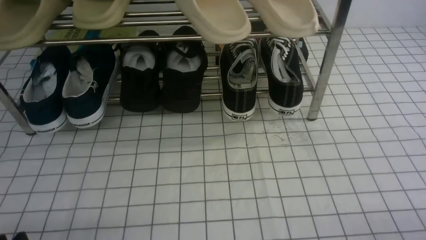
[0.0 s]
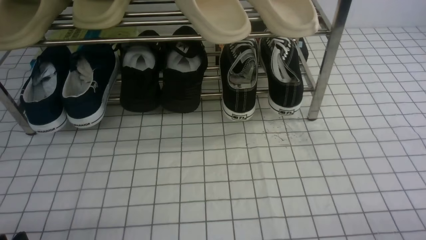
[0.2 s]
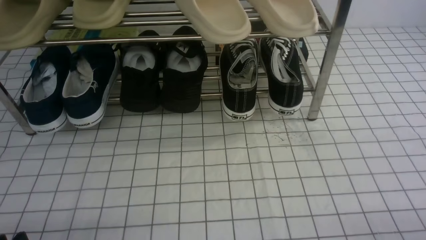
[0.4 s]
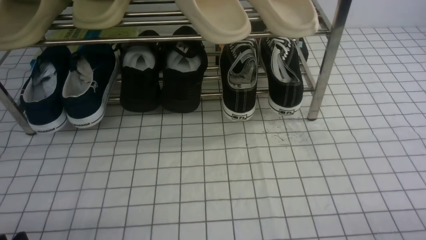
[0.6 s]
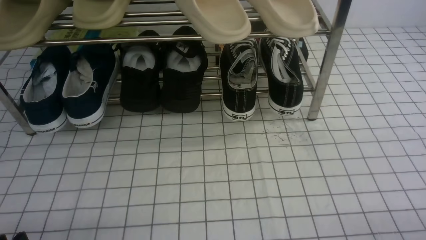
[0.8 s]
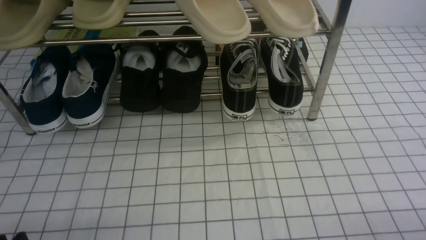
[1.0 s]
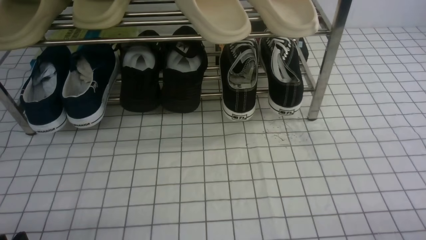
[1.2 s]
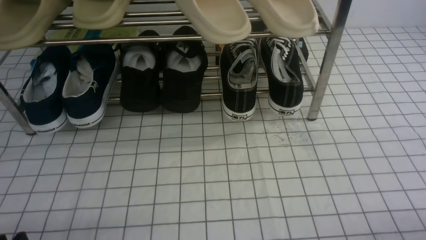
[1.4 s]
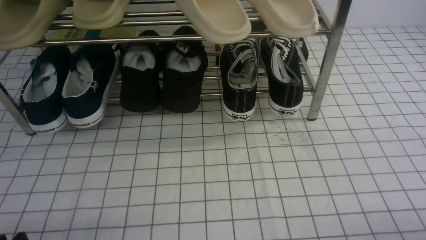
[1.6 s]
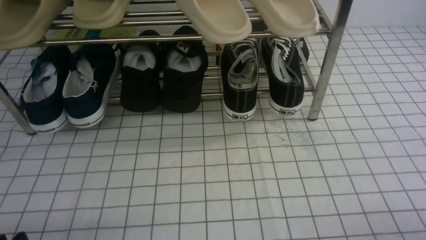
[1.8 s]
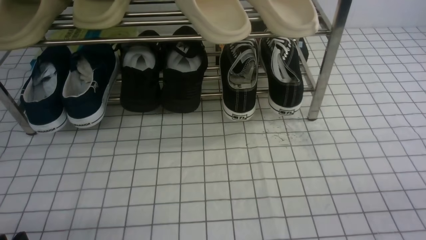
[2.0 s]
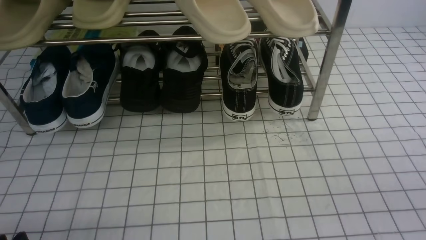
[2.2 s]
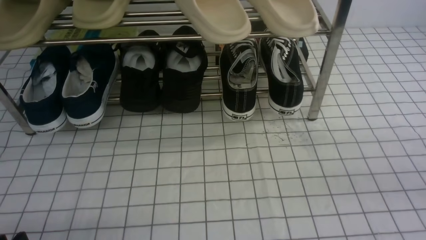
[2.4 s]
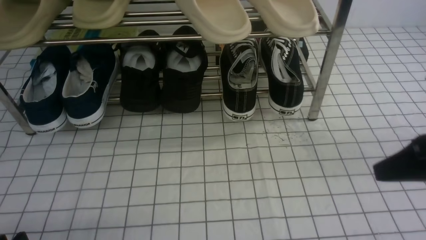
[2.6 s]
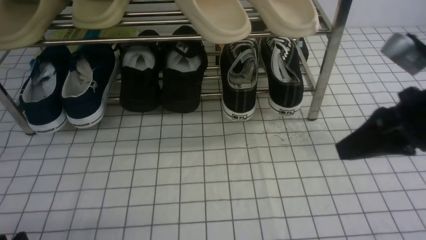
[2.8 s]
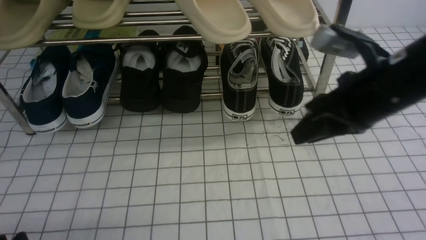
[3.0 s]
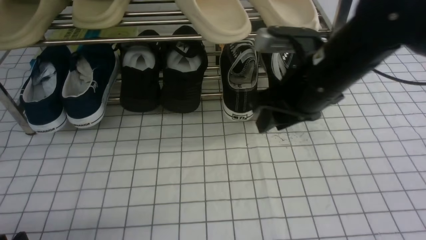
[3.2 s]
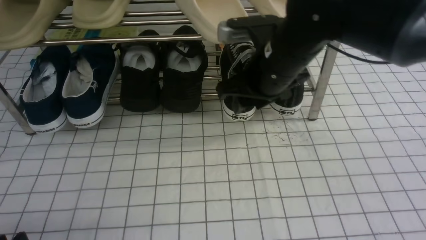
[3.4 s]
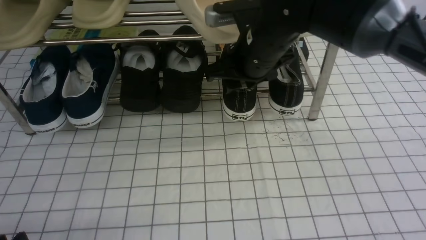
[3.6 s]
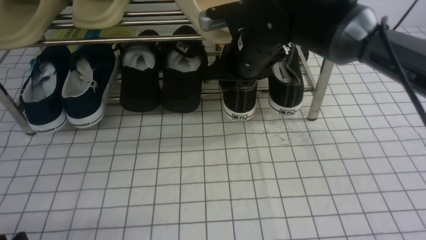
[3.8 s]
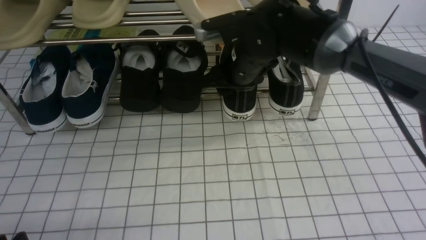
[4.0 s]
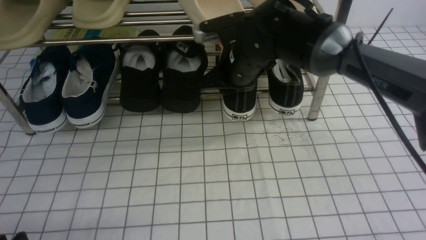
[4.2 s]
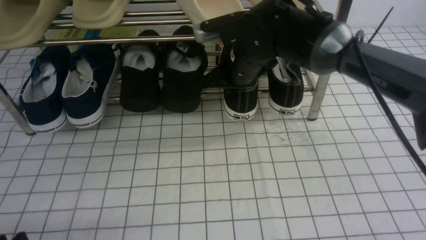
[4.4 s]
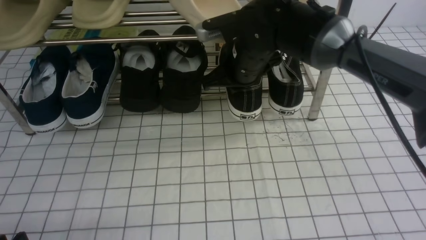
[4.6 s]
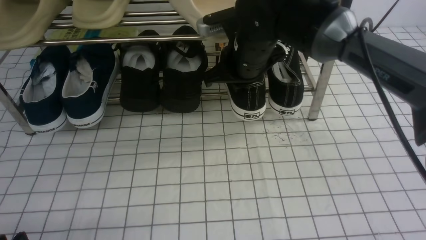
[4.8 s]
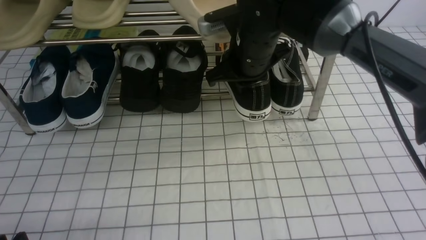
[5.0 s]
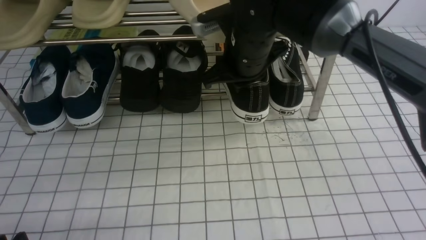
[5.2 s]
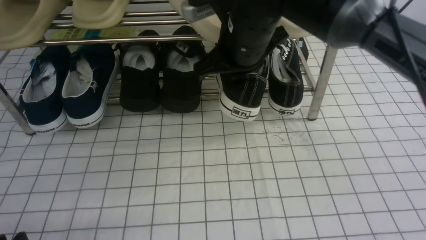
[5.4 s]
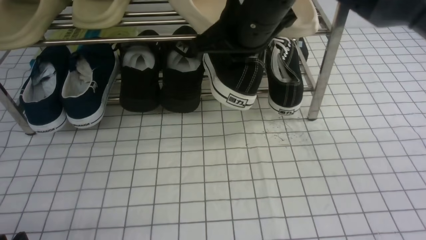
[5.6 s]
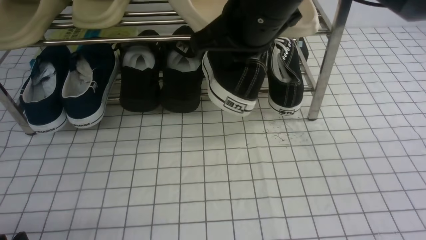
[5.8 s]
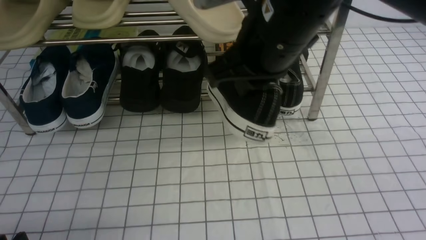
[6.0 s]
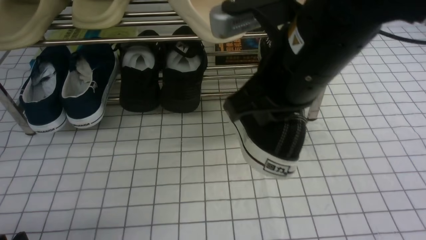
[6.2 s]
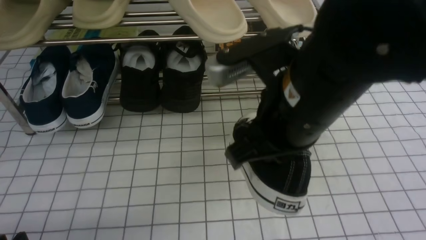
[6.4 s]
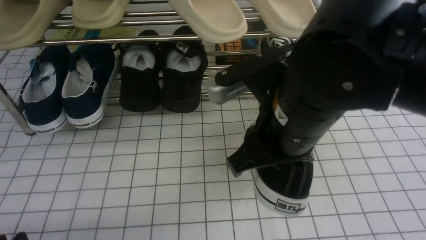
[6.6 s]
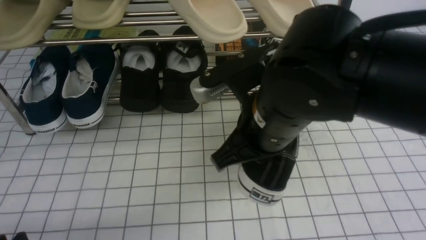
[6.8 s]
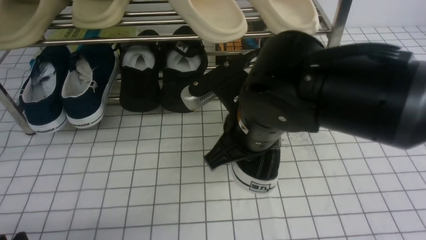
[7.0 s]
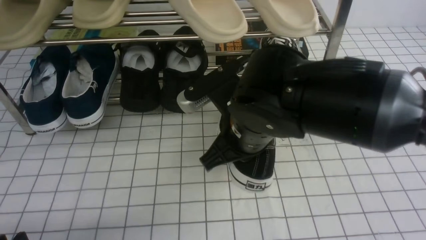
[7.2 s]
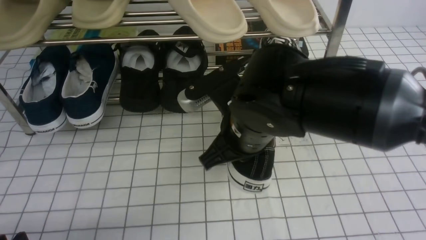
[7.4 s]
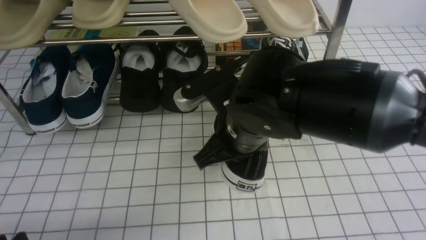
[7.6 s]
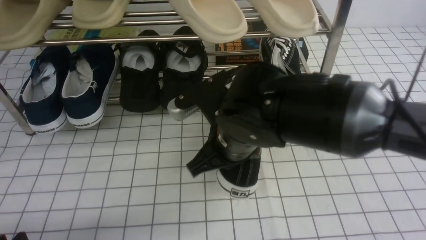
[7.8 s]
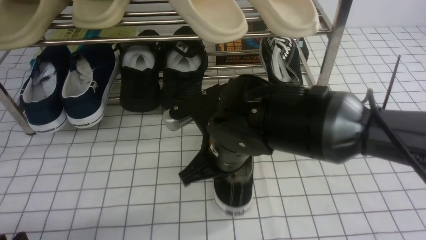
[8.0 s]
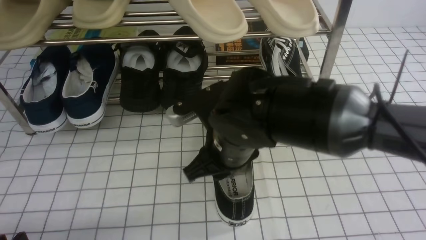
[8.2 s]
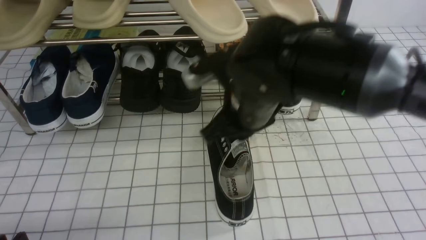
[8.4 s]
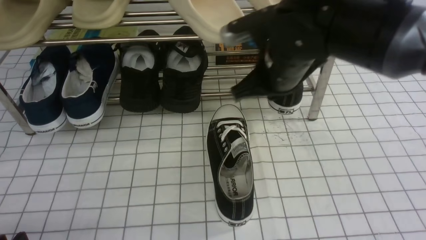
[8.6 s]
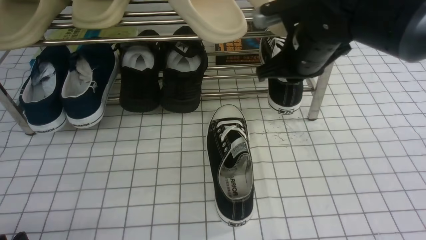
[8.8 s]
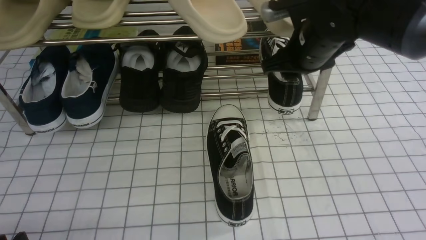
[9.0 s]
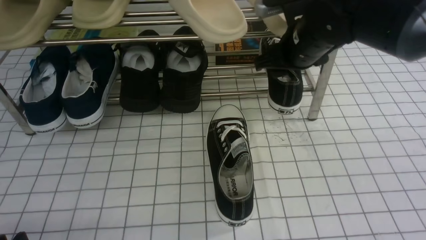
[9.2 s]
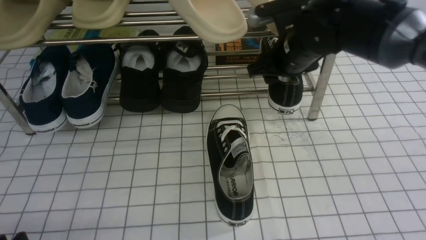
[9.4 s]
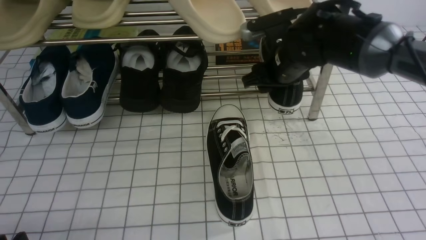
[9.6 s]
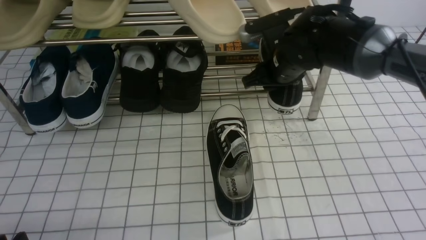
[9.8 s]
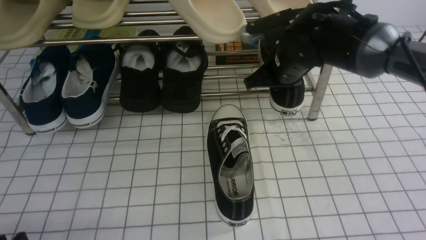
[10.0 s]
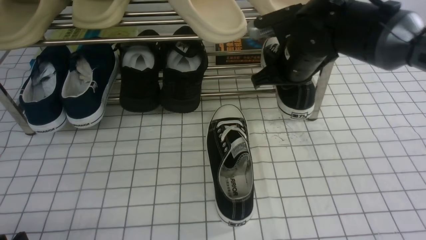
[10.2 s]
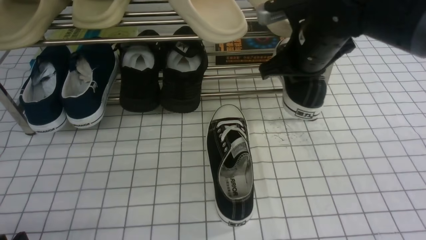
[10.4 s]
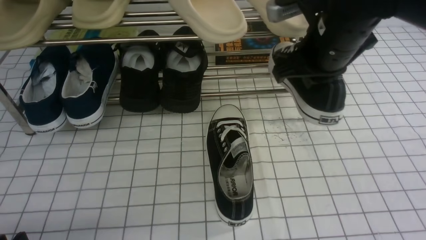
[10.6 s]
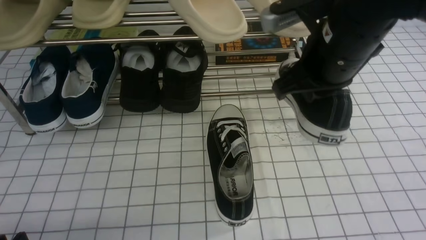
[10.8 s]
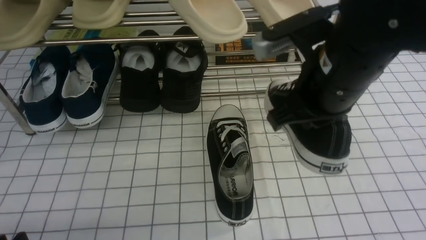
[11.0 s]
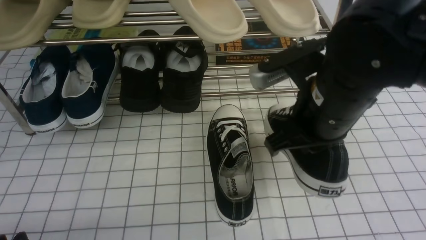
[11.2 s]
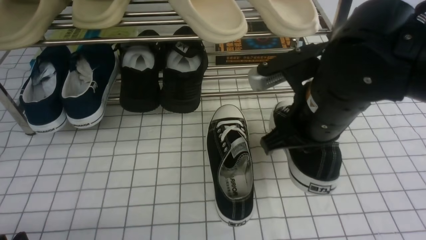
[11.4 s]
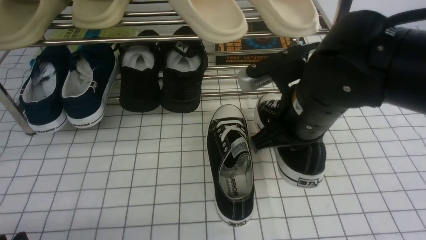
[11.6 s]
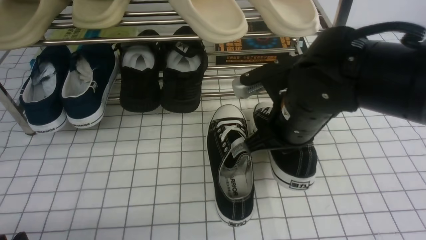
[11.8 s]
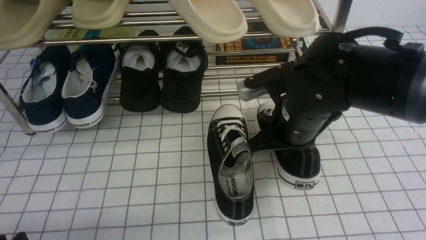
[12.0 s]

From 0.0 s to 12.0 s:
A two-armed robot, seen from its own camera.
Step, from 0.0 s to 4.2 s: use the right arm to clamp a shoe on the right side of the shoe rack.
Step, from 4.4 s to 8.2 s: use the right arm to take out the clamped shoe from the shoe rack and put it down.
Step, from 8.4 s to 9.8 s: use the right arm to clamp a shoe on the right side of the shoe rack.
From 1.6 s to 3.0 s: The right gripper heads forward, upward and to the left, covering roughly 30 cm, and closes, then reopens.
From 3.0 s to 4.4 s: The right gripper shifts roughly 20 cm to the left, forward and downward, and closes.
From 4.4 s to 6.0 s: The right gripper travels backward and upward by some 20 cm.
From 6.0 s to 7.6 s: The right gripper is displaced downward by approximately 10 cm.
From 7.6 s to 9.0 s: The right gripper travels forward and to the right by about 15 cm, and opens its fingers.
From 9.0 s to 10.4 s: The right gripper closes up.
From 10.4 s to 12.0 s: The right gripper travels backward and downward by some 10 cm.

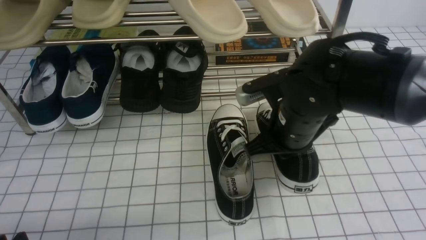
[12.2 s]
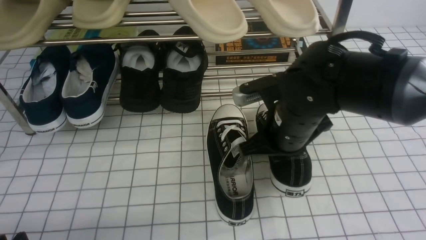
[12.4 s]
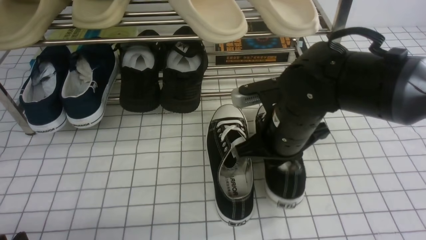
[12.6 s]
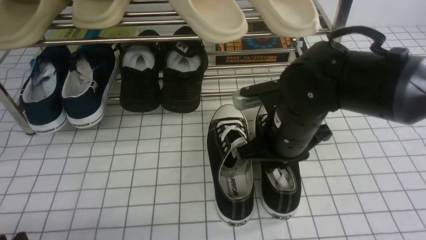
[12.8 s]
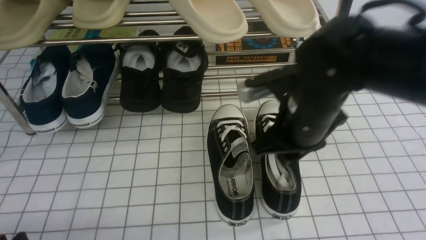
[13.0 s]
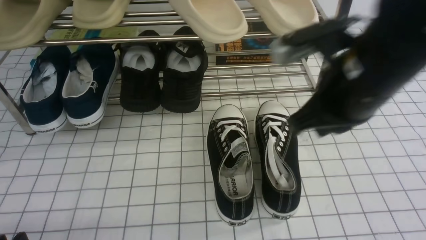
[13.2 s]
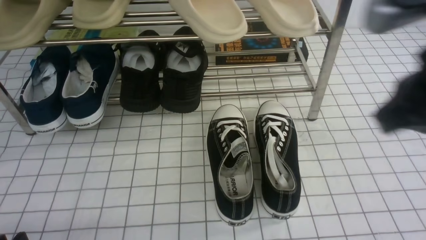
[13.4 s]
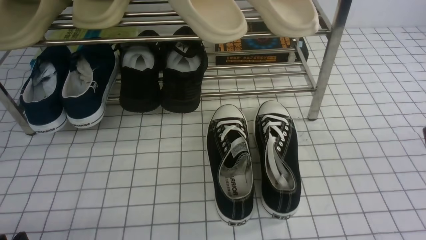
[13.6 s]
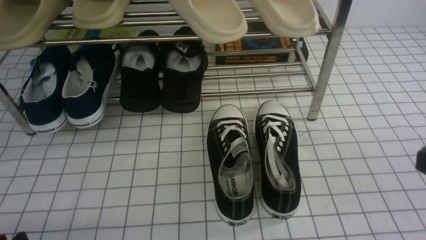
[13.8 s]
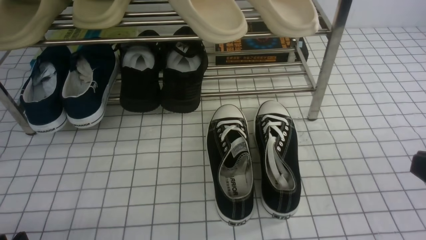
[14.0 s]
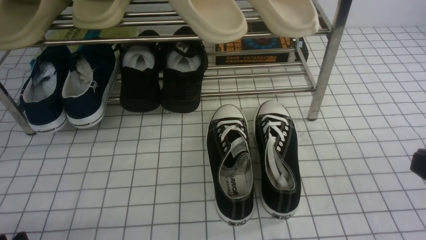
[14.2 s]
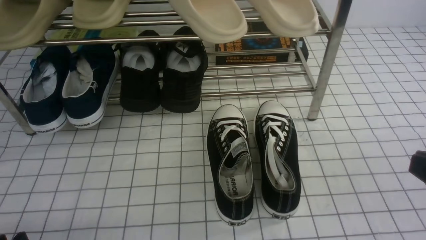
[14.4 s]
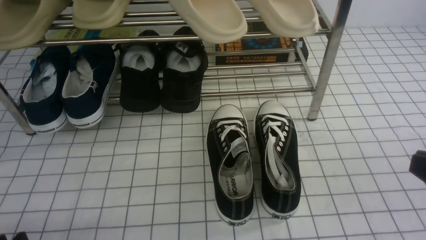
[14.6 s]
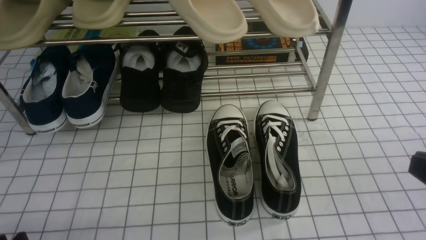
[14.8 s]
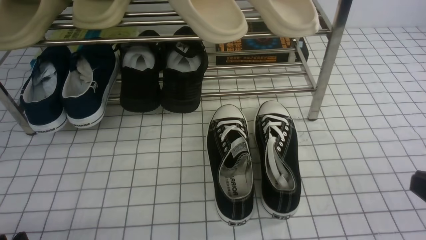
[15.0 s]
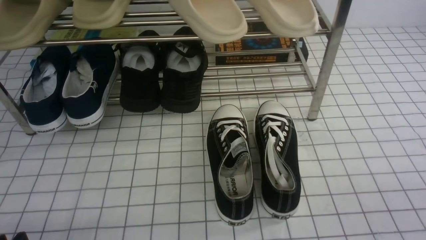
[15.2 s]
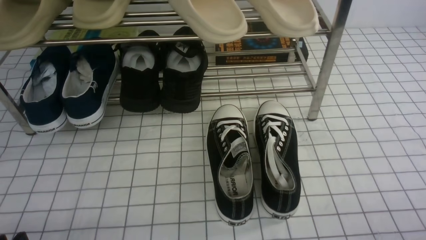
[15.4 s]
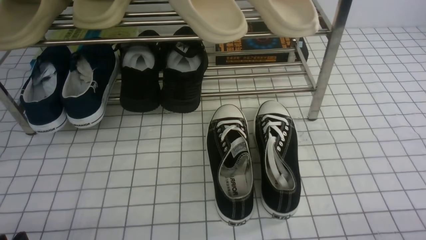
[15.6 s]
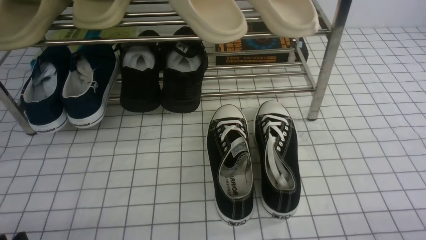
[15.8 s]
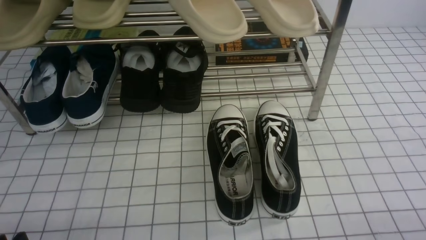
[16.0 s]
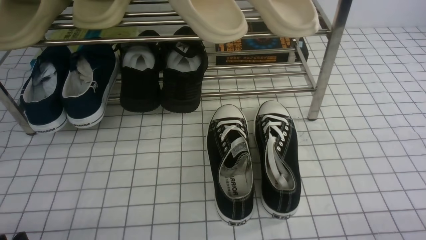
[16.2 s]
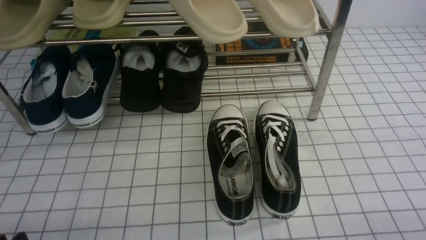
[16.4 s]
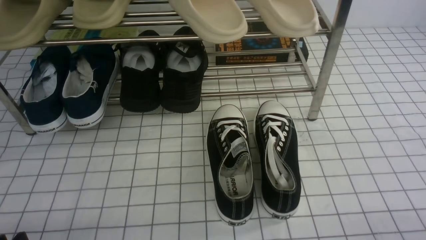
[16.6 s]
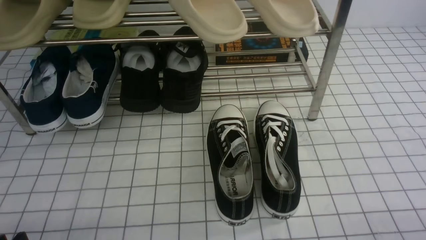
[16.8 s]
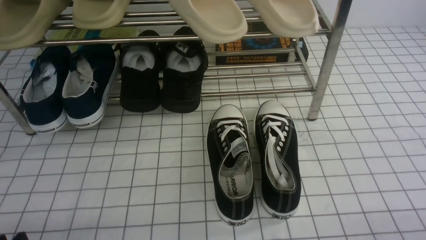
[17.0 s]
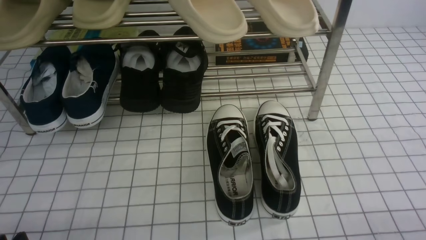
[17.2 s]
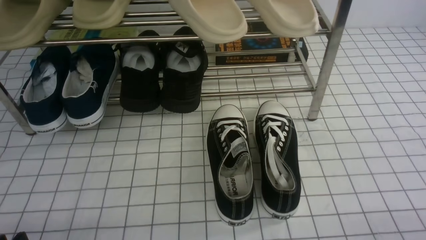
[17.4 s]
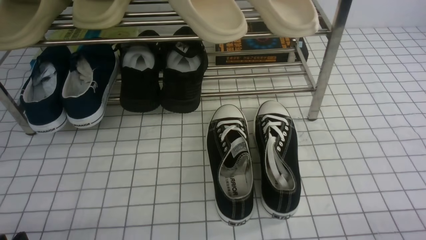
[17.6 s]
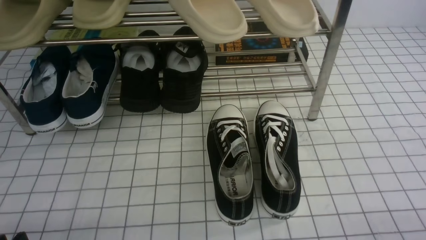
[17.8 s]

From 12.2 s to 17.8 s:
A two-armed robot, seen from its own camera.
From 12.2 s to 13.6 s: The right gripper shifts approximately 25 cm backward, to the right and upward.
From 16.4 s to 17.8 s: Both grippers stay put.
